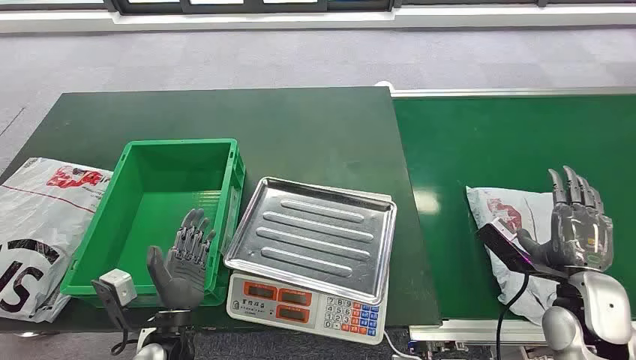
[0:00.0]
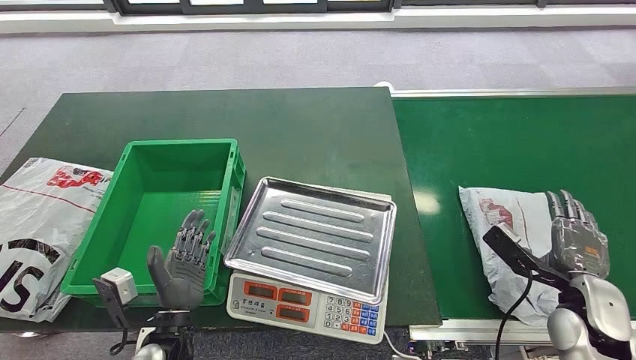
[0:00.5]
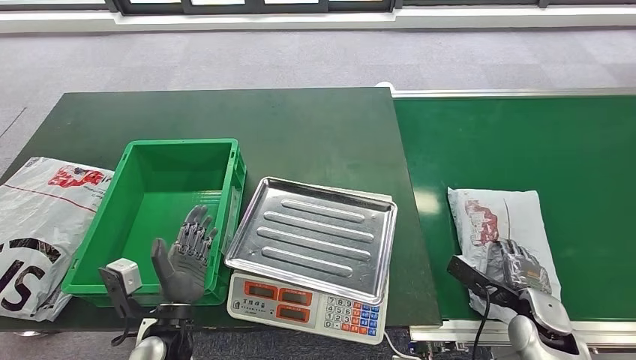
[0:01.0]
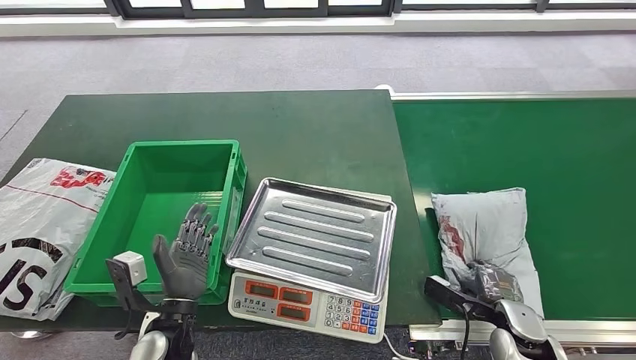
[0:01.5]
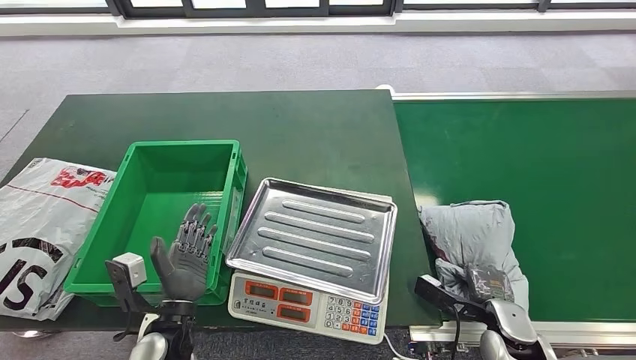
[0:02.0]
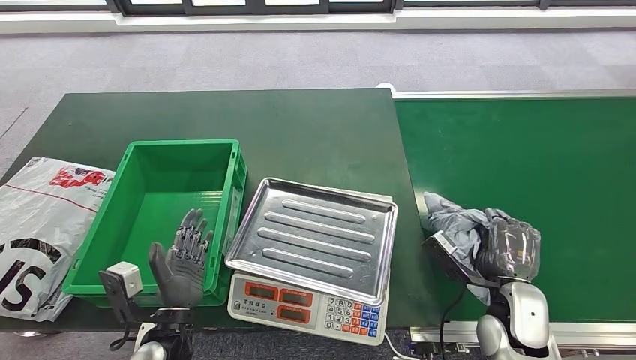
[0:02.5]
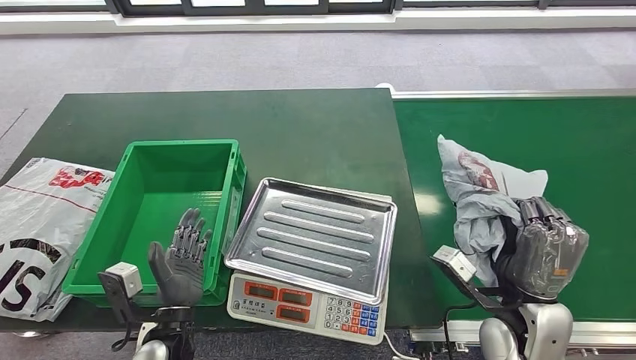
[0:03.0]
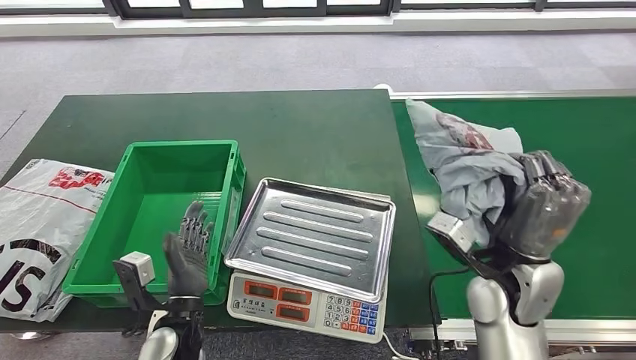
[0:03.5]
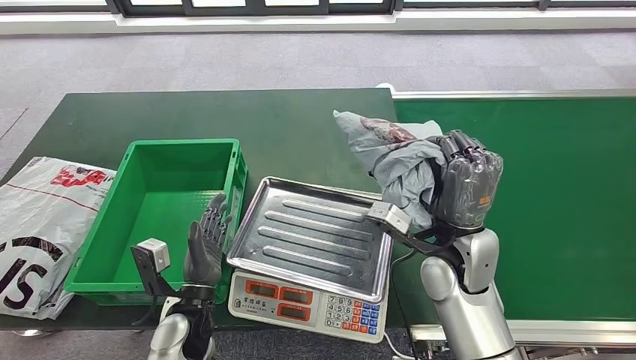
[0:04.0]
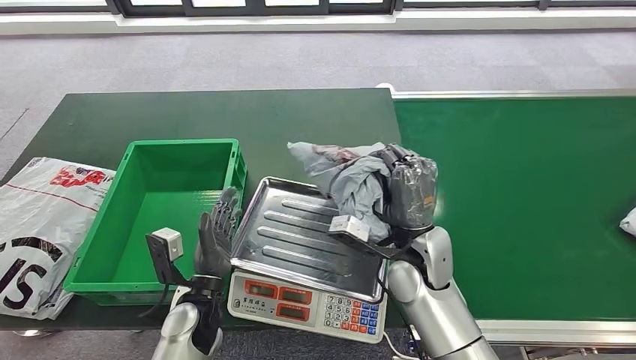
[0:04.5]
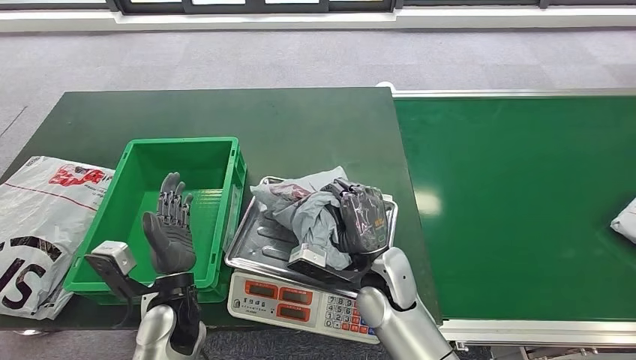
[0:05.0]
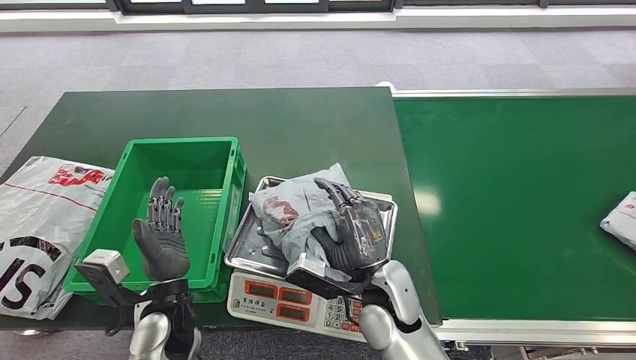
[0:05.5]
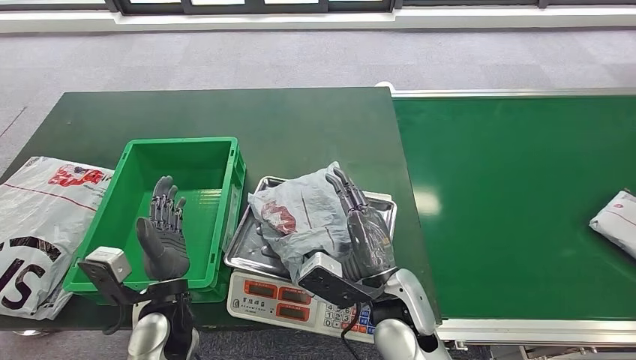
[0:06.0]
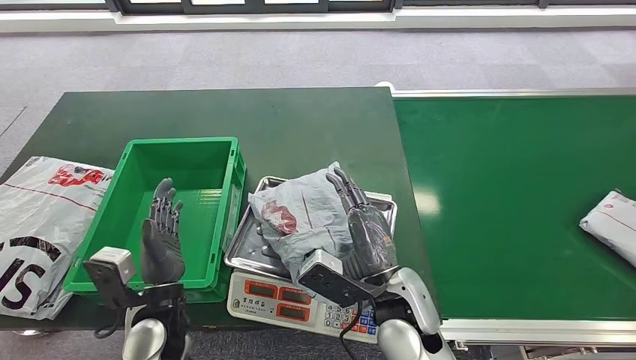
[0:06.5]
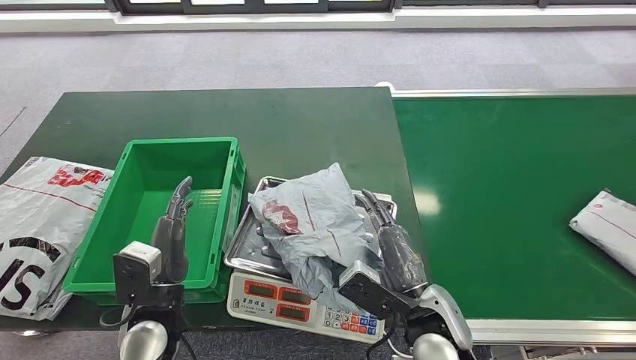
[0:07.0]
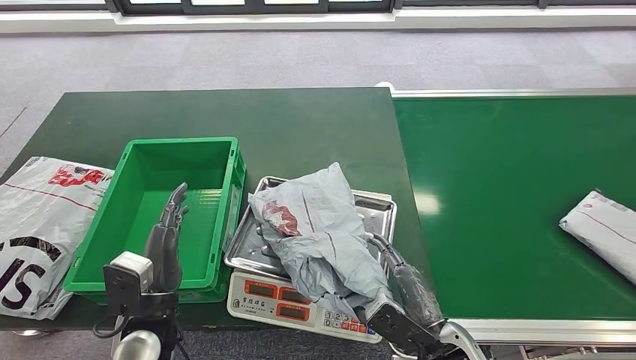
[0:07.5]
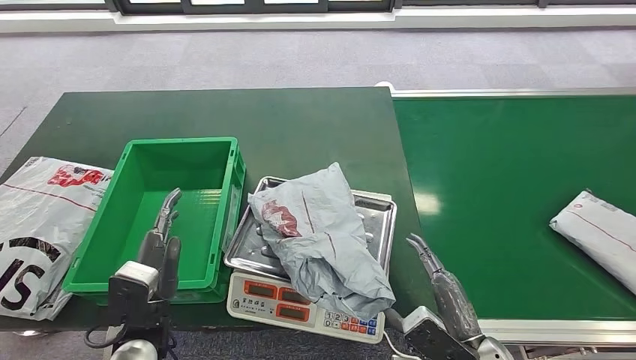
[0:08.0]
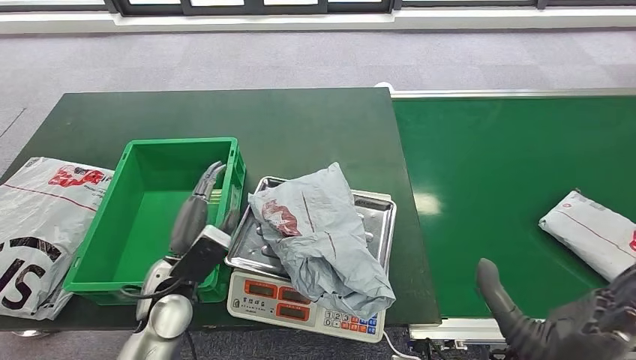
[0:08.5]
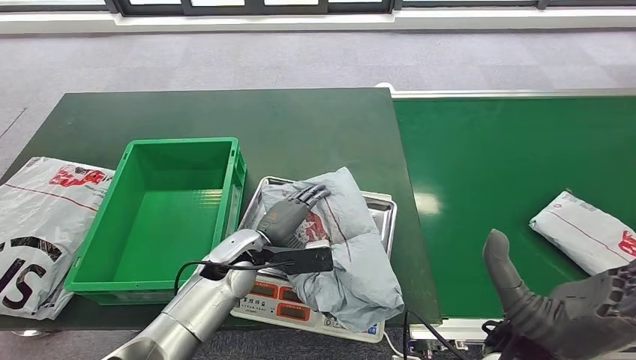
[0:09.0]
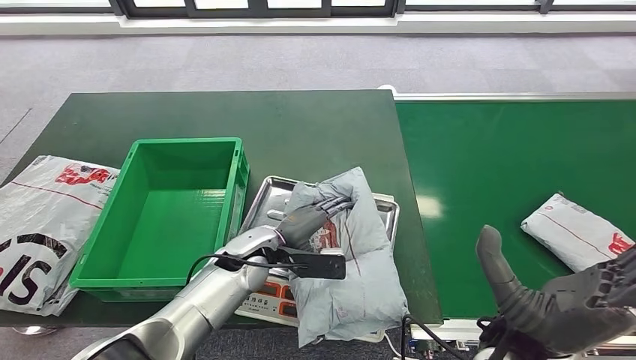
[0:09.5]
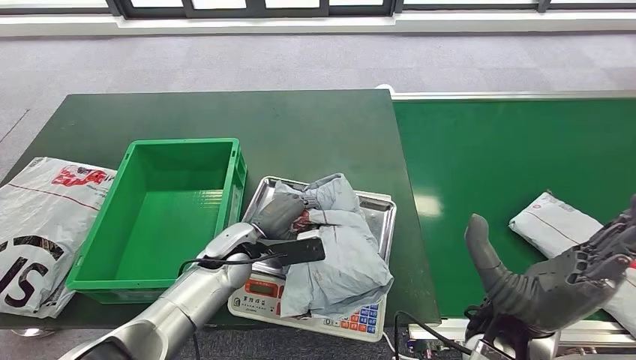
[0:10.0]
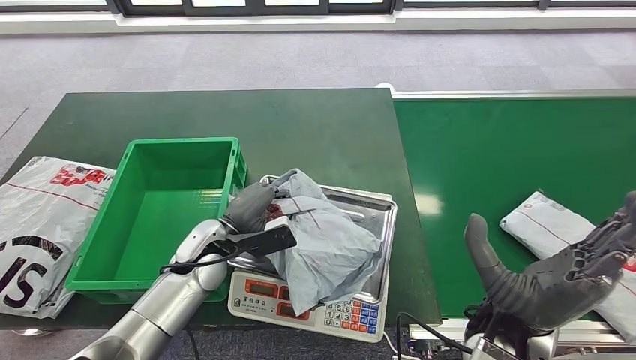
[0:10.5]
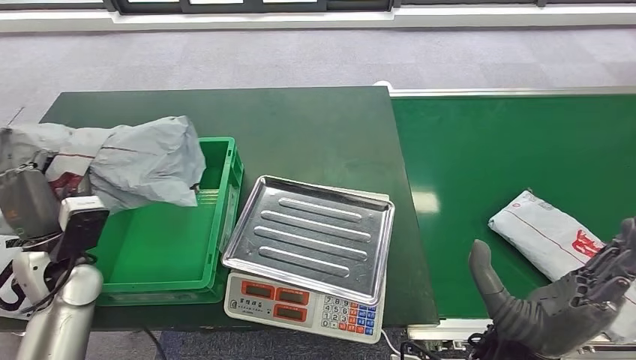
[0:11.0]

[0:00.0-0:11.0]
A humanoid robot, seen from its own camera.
Step, 0:00.0 to 0:02.5: Pick up the package from the conveyor belt.
Step, 0:03.5 to 0:07.0: Place the package onto the inbound machine.
Step, 0:07.5 to 0:10.5: Pick up the package from the inbound machine.
0:02.0 to 0:03.5: The right hand heads upward and to the left, covering some 20 cm.
0:05.5 to 0:07.5: The right hand travels to the right and backward by roughly 15 cm.
0:07.5 to 0:09.0: The right hand goes approximately 15 cm upward; the left hand heads forward and to the right, covering approximately 15 cm.

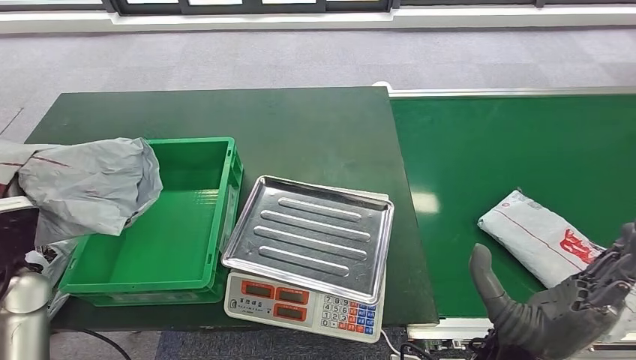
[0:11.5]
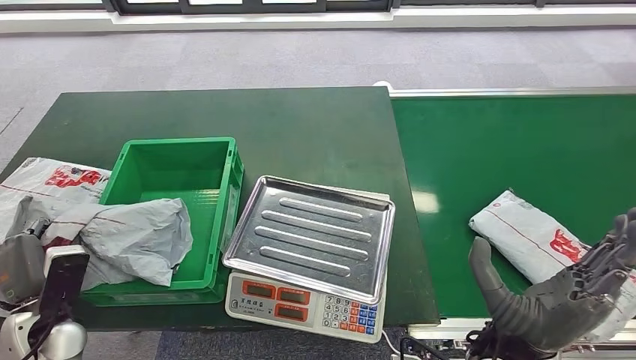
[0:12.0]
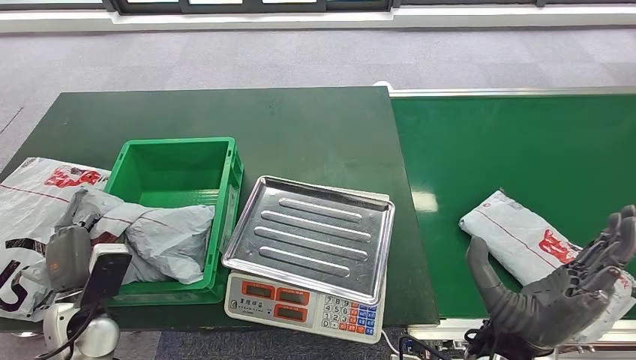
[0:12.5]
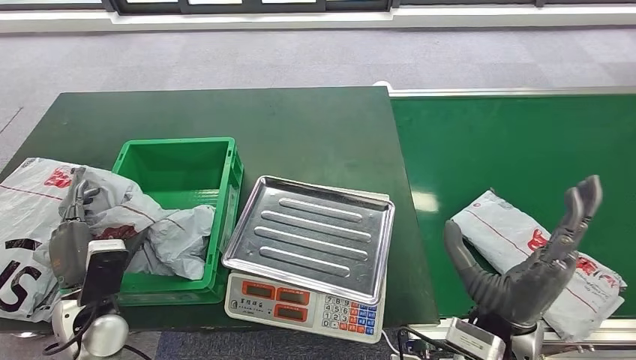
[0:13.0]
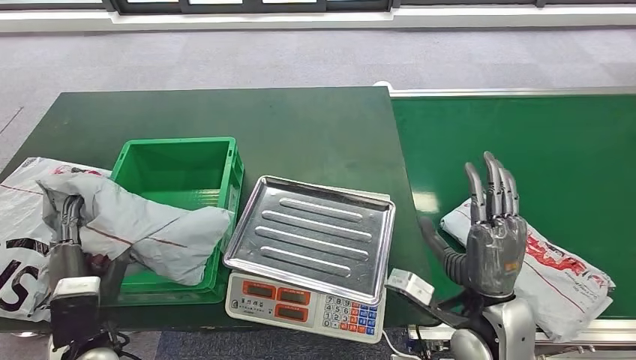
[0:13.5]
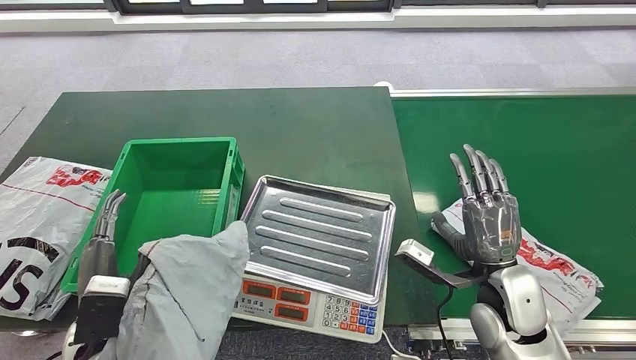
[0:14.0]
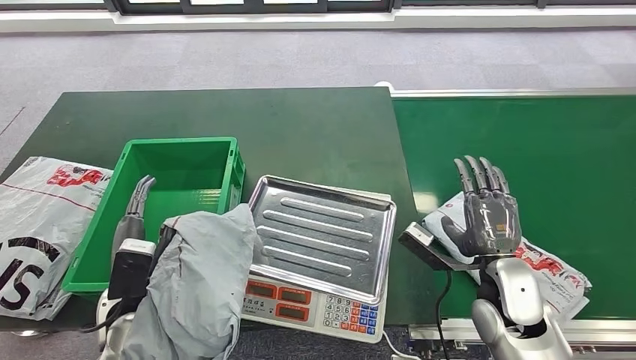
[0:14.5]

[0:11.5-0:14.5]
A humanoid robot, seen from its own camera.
Step, 0:11.5 to 0:14.5: Place the package into the parcel locker.
